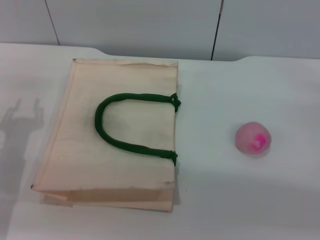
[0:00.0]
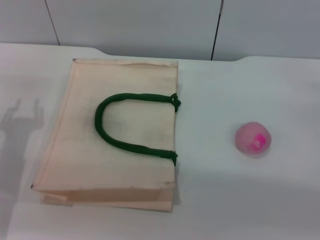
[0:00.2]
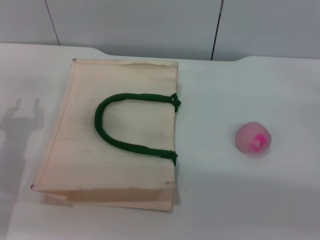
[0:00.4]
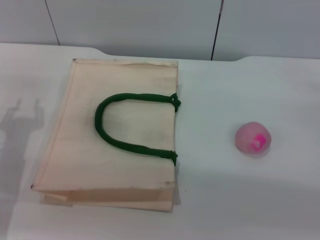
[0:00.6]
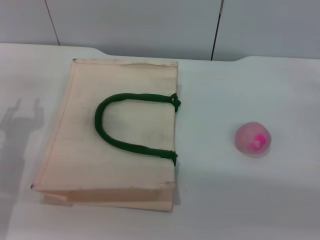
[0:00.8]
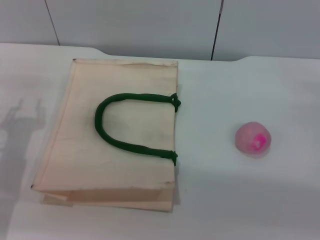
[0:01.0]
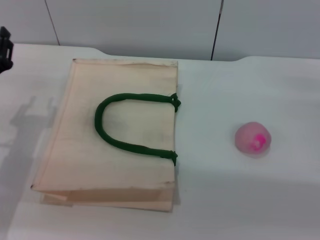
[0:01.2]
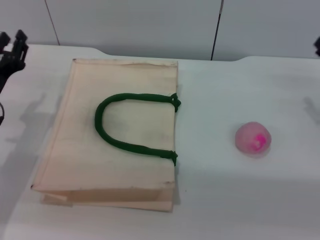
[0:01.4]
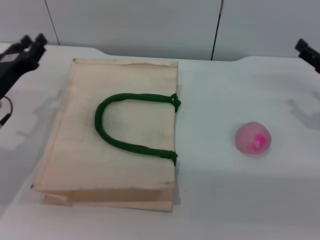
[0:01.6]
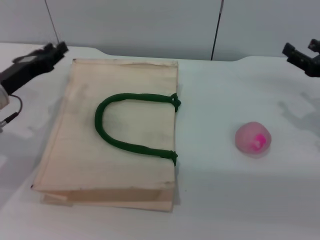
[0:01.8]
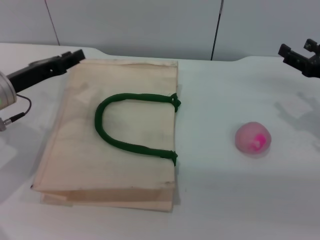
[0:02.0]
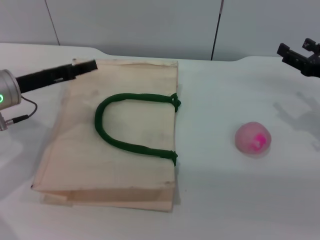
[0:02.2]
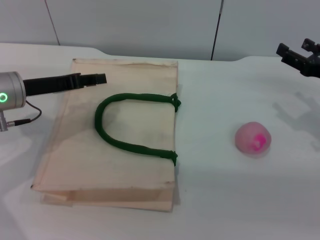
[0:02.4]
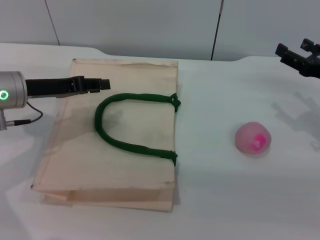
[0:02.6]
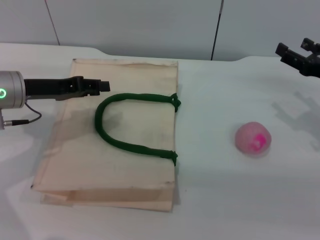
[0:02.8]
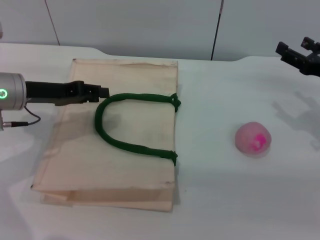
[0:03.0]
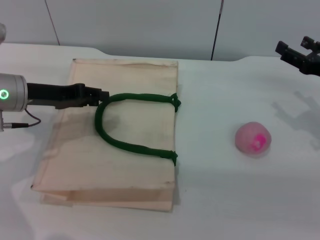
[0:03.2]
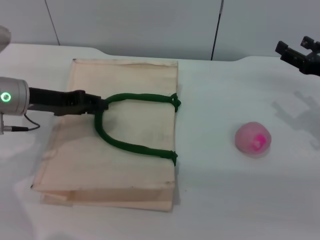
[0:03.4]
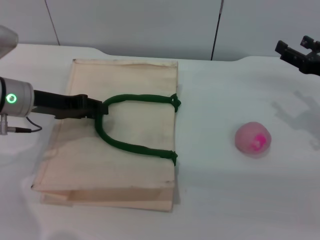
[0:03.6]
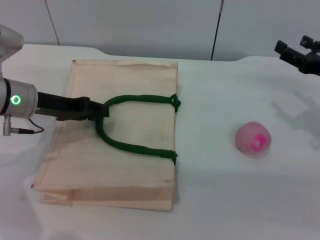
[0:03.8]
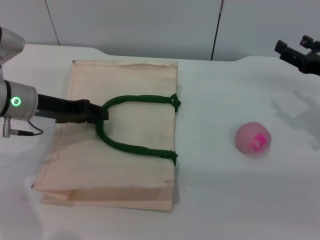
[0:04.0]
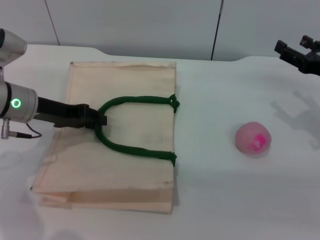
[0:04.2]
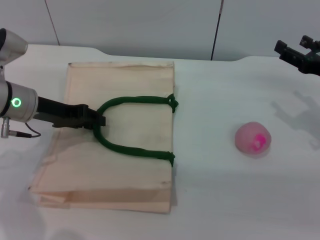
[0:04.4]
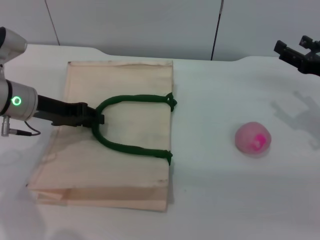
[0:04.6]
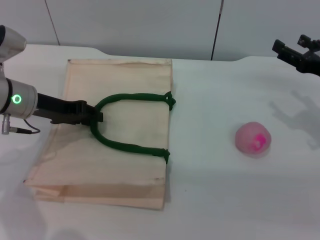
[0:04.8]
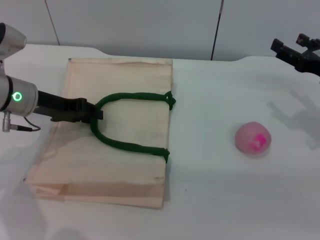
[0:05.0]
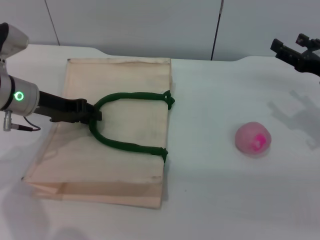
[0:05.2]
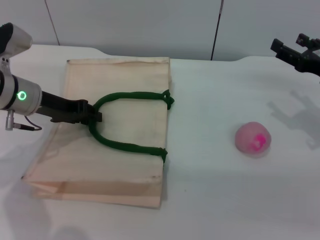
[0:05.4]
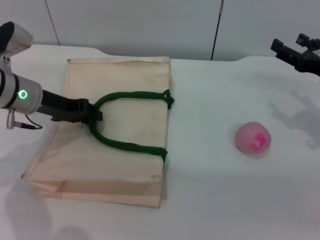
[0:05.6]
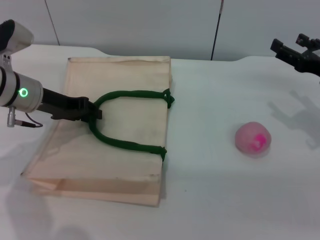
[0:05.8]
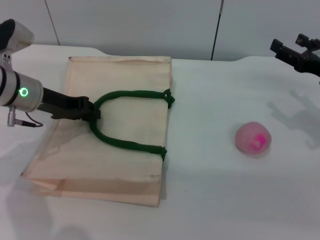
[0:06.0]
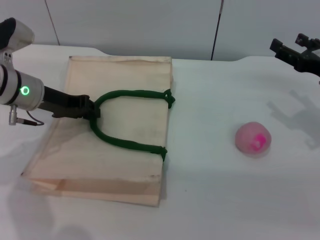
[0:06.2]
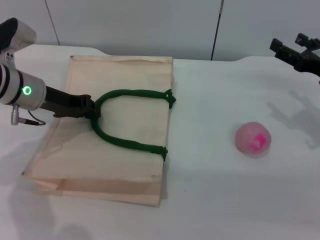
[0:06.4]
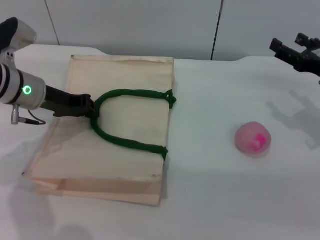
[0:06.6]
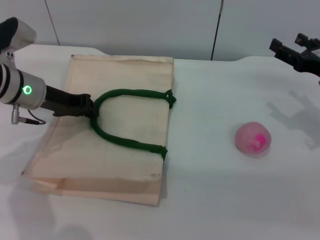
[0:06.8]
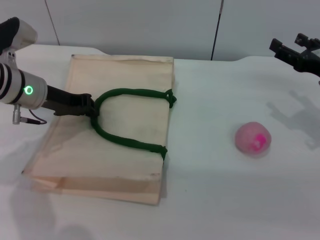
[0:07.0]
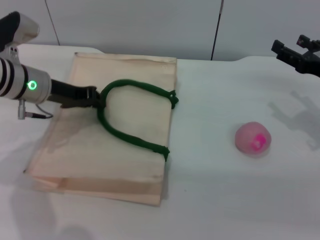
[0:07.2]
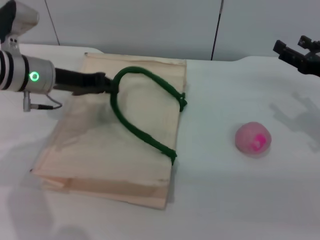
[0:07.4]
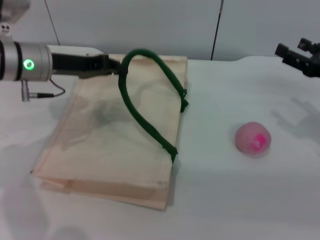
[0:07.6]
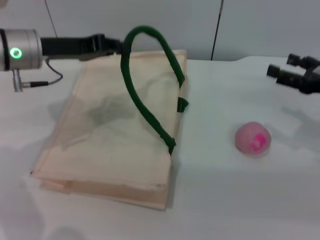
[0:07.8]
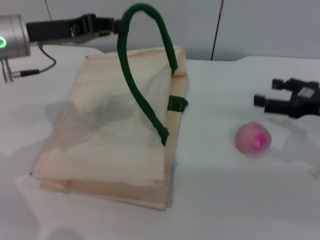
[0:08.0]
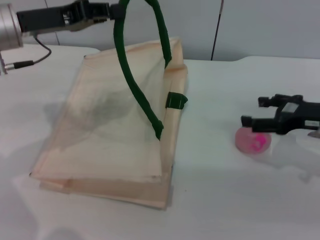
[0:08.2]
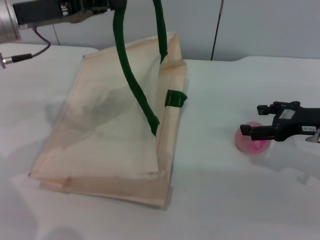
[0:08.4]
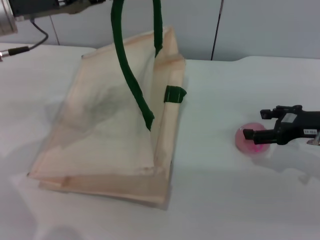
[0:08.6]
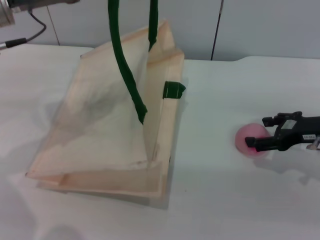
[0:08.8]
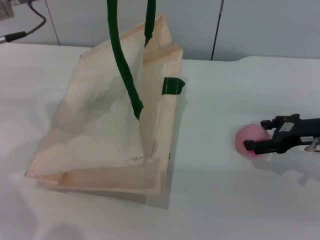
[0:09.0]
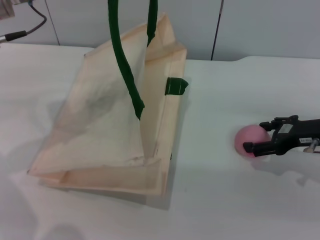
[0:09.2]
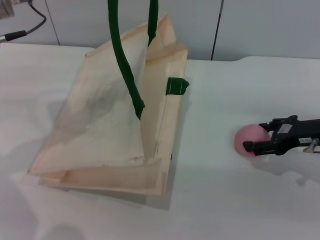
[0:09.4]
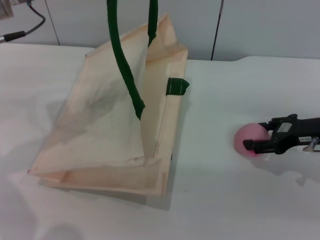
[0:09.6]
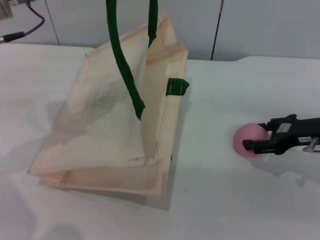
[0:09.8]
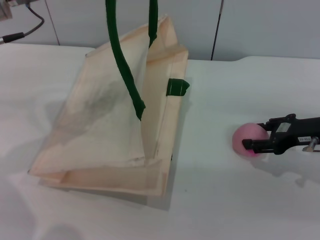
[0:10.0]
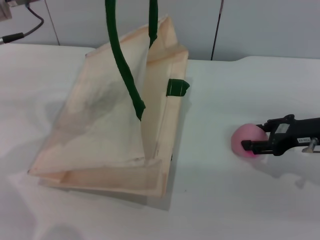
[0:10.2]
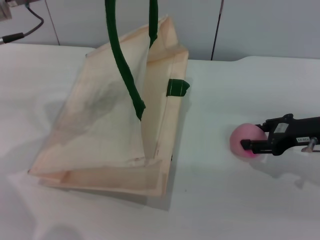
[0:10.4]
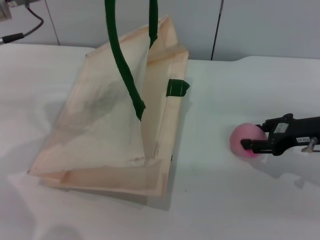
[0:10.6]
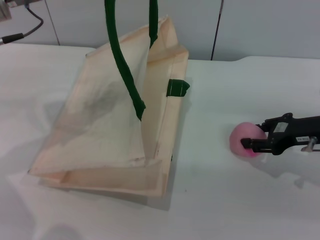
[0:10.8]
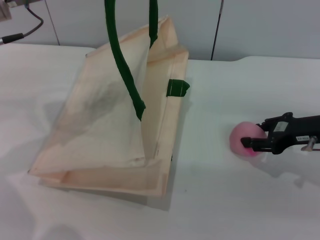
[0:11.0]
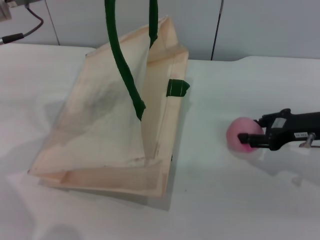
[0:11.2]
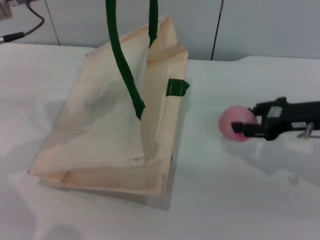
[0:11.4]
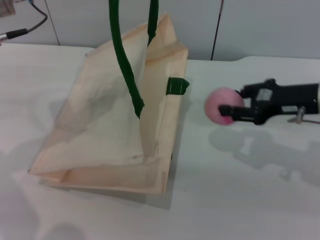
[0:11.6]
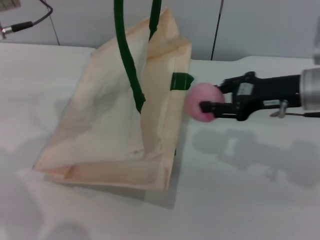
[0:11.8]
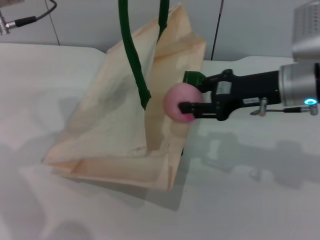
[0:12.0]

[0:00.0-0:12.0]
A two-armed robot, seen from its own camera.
Task of the whole recording: pick up the peach from the table and place it in the white handbag.
Step, 0:00.0 to 0:07.6: Lift the woven bag with the left gripper to open it.
Step, 0:07.8 to 0:11.4: Pick up the peach with the right gripper.
0:00.0 to 0:01.6: The right gripper changes place by about 5 cm.
0:01.6 to 0:03.0: The left gripper shifts by approximately 5 cm.
0:03.0 to 0:04.4: The grippers move only a little.
0:04.4 to 0:06.0: The grippers stay close to where they were, moving slightly.
0:06.0 to 0:07.6: The left gripper closes.
0:07.6 to 0:09.0: The left gripper moves upward, some 10 cm.
0:09.0 to 0:10.4: The right gripper closes its fingers.
0:10.4 to 0:12.0: The right gripper heads to the left and upward, covering some 10 cm.

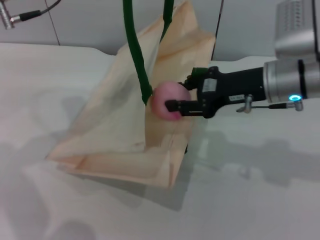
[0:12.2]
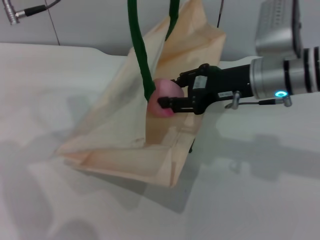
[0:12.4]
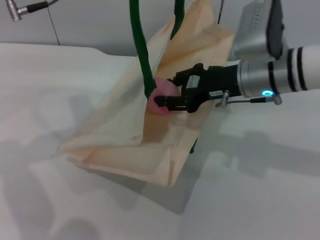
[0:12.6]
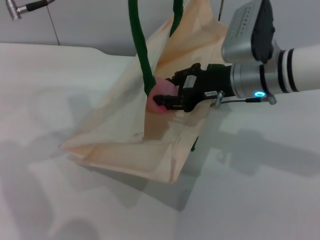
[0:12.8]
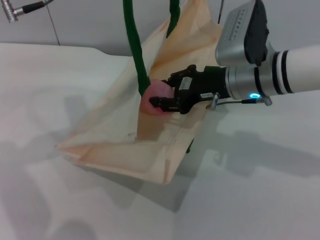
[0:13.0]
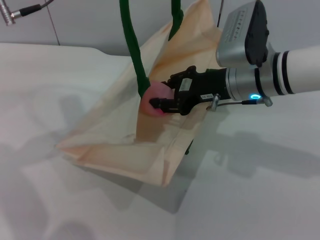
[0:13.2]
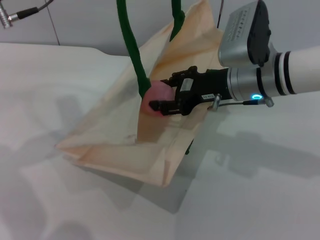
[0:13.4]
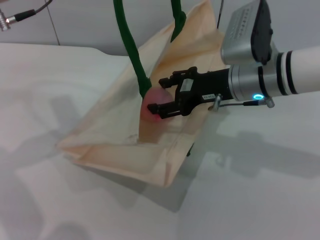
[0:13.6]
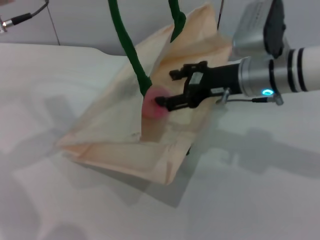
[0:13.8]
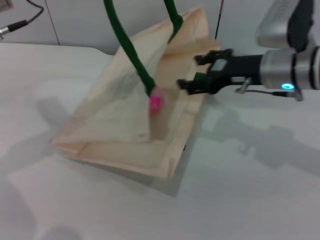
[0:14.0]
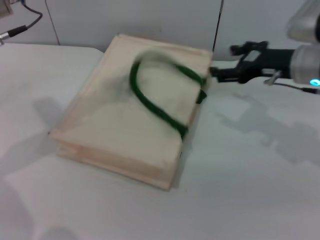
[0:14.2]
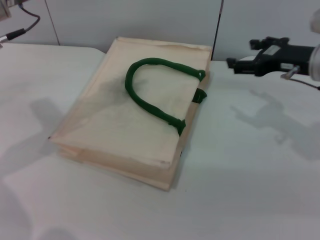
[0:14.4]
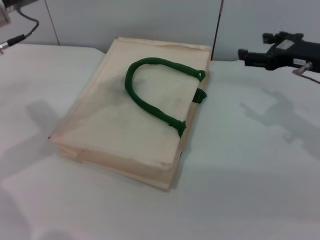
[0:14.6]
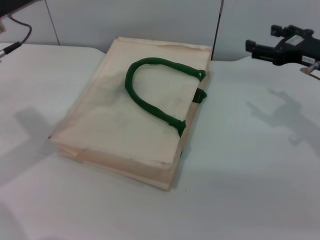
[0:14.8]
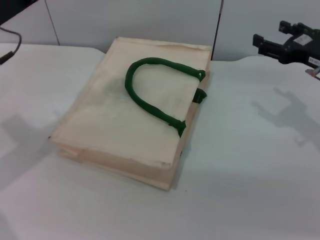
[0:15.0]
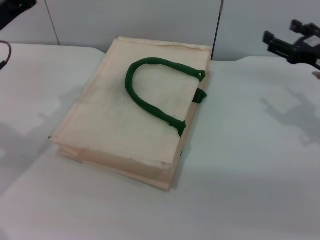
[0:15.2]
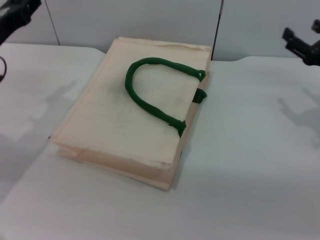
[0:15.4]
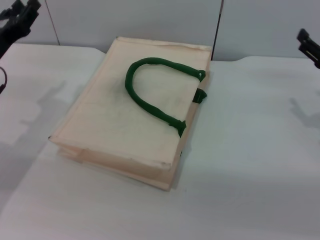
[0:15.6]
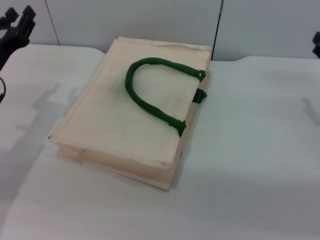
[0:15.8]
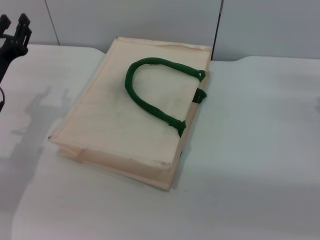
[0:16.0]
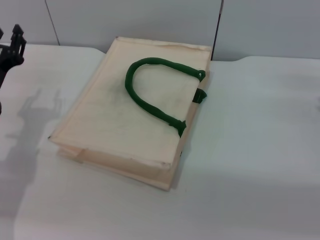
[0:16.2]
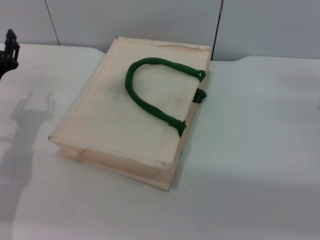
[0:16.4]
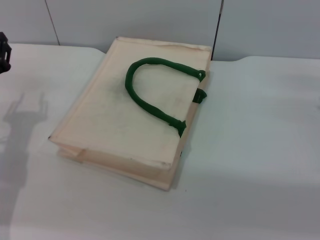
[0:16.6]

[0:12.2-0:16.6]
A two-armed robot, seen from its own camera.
Task of the whole recording: pick up the peach from the table and place it in the white handbag.
Step, 0:12.2 to 0:13.8: Place the peach into the woven bag with the right gripper.
Step, 0:14.0 to 0:14.8: Lower the woven bag with the left gripper to close it.
0:12.2 to 0:13.6: The grippers stay close to where they were, moving slightly.
0:13.6 to 0:15.2: The right gripper shifts some 15 cm to the right, and opens up; the left gripper goes about 10 cm downward and to the left, and opens its fingers.
0:15.2 to 0:16.6: The right gripper changes place by roughly 10 cm; the left gripper shifts about 10 cm downward.

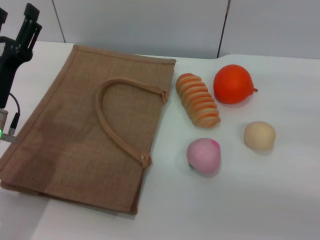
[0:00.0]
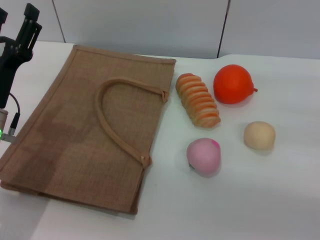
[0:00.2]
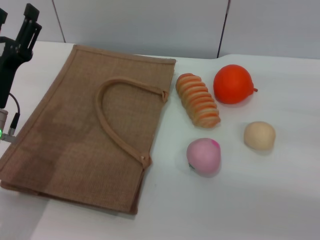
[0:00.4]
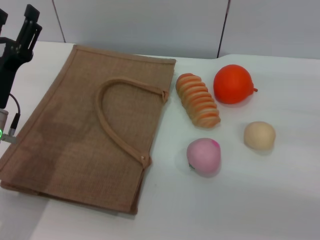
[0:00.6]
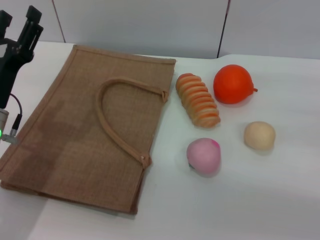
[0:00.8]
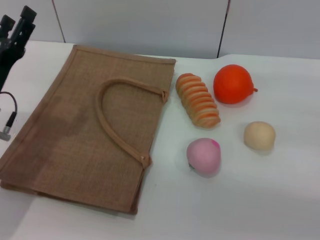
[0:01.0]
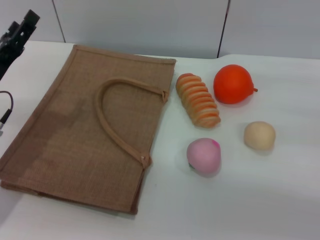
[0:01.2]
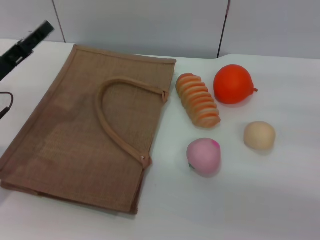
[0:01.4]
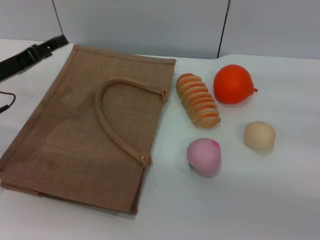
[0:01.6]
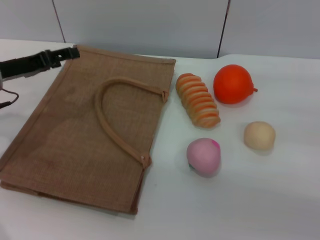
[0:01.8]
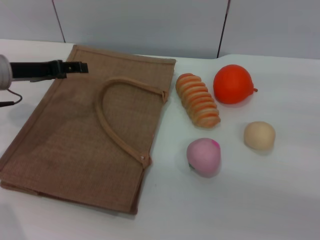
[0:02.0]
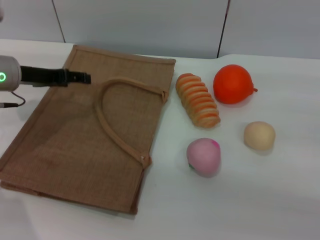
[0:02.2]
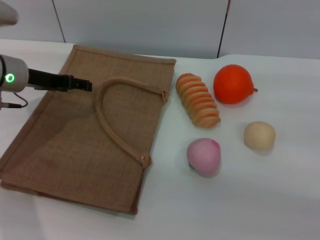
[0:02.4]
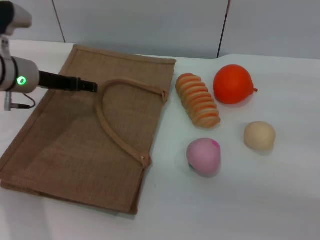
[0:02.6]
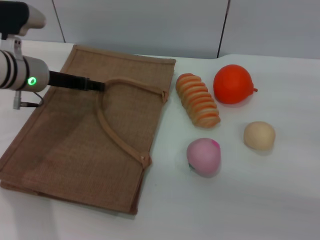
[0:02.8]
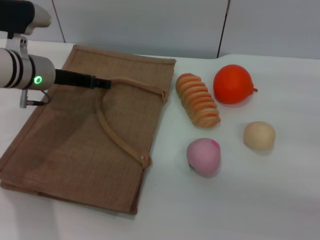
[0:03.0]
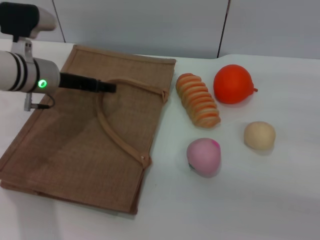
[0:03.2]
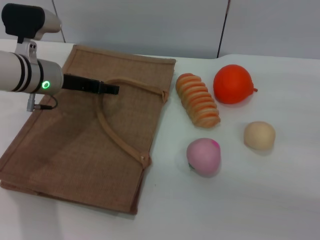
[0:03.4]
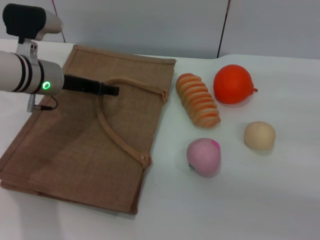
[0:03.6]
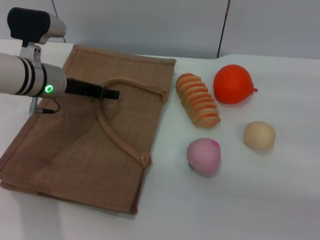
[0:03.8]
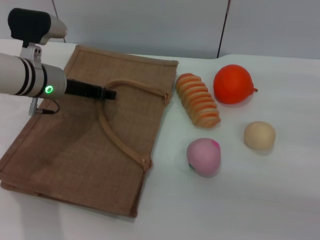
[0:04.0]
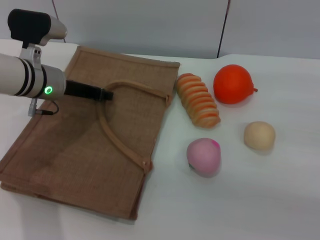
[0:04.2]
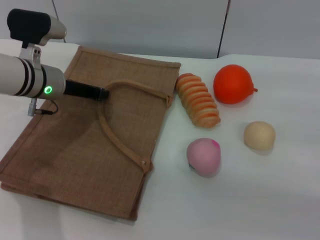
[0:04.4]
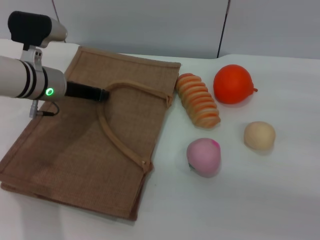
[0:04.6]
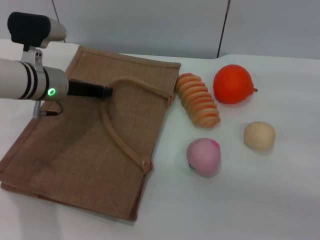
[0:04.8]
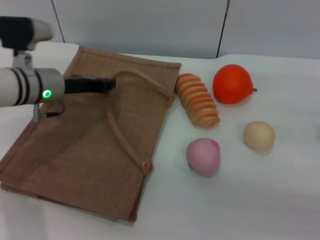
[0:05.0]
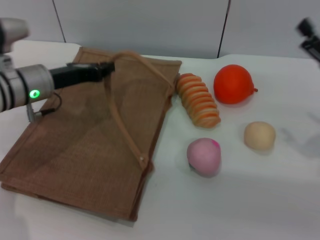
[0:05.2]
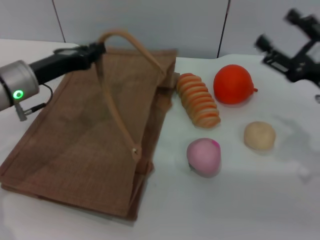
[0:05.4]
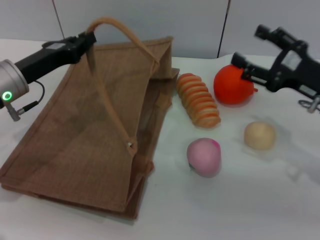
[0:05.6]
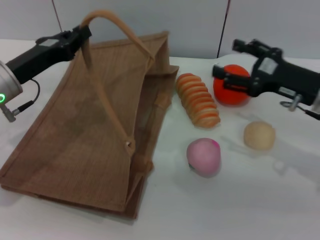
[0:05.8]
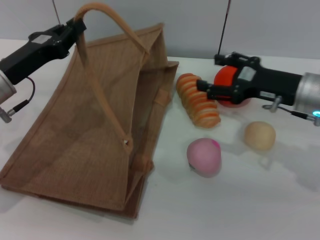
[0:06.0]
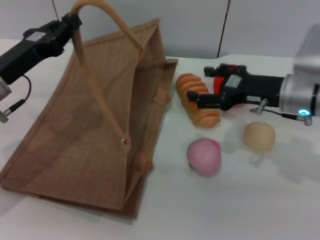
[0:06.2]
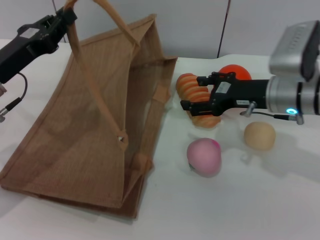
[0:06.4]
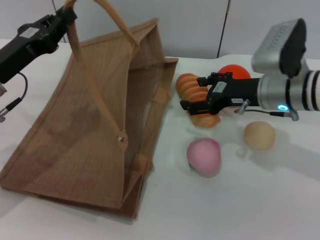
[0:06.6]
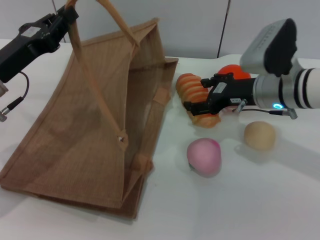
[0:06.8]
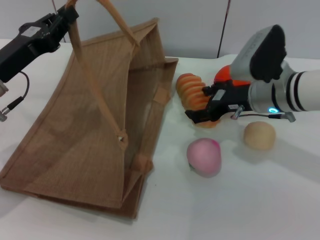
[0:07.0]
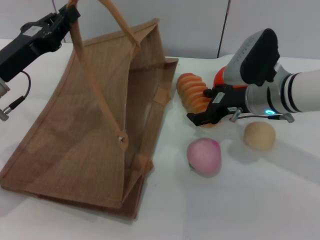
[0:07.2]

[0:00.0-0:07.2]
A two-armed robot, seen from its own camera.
Task of the whole recording: pick up the bread and egg yolk pastry from the table and place it in the brown handbag.
Step, 0:00.0 to 0:05.0: Lift the woven bag with the left gripper to open it.
0:00.0 to 0:01.4: The left gripper heads to the left, covering some 5 cm.
0:01.4 to 0:02.8: The left gripper moves forward and to the right, roughly 10 cm.
0:02.8 to 0:04.4: The left gripper closes.
0:04.4 to 0:05.8: The right gripper goes approximately 10 cm to the left and forward; the left gripper heads backward, covering some 5 cm.
0:05.8 to 0:07.2: The right gripper moves to the left, some 10 cm.
